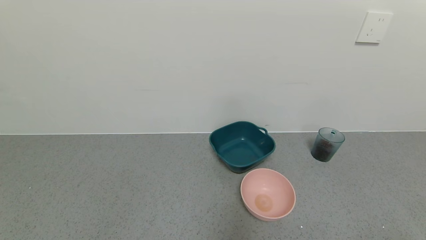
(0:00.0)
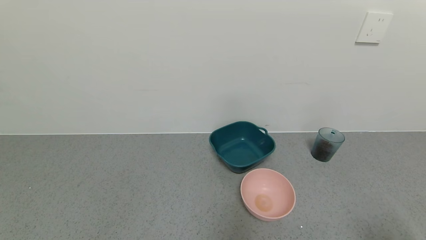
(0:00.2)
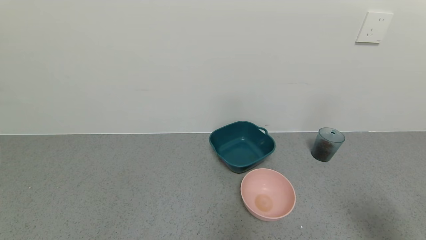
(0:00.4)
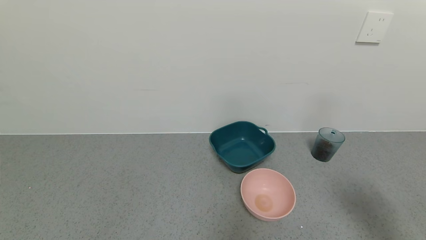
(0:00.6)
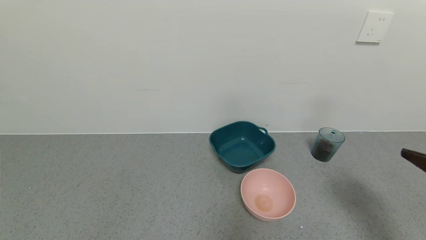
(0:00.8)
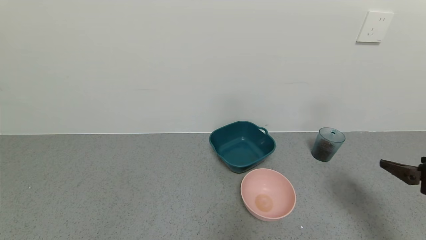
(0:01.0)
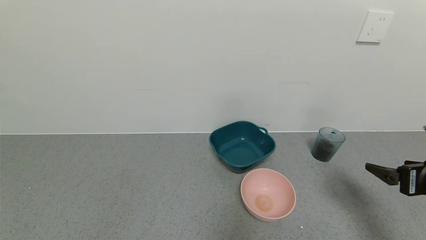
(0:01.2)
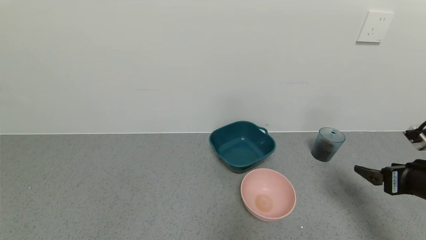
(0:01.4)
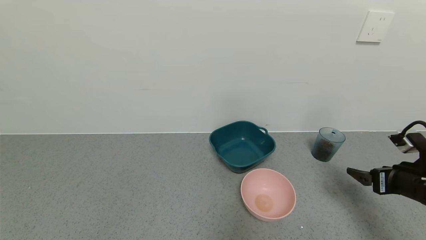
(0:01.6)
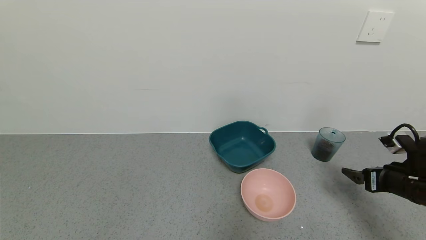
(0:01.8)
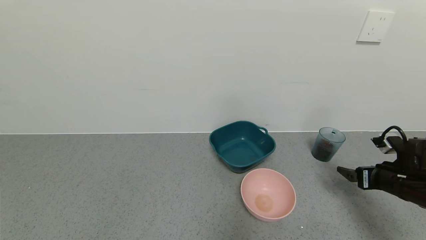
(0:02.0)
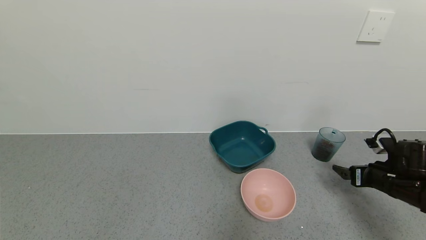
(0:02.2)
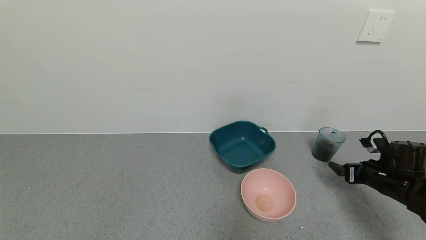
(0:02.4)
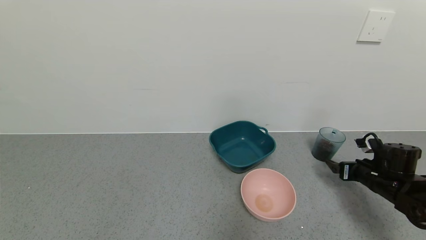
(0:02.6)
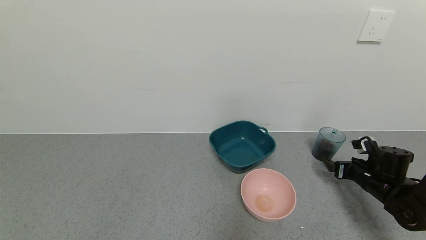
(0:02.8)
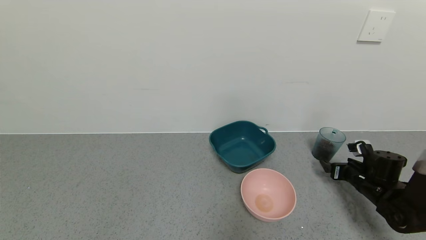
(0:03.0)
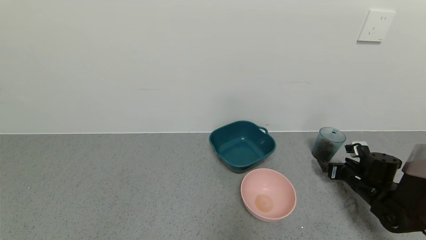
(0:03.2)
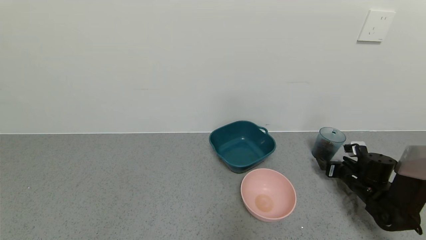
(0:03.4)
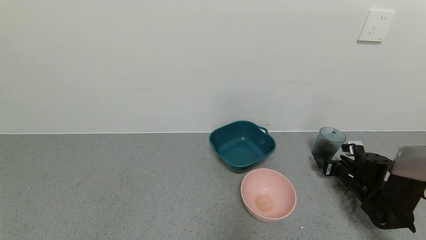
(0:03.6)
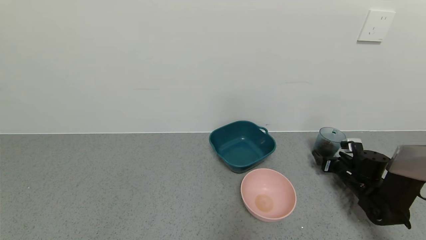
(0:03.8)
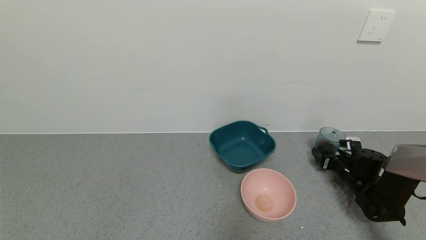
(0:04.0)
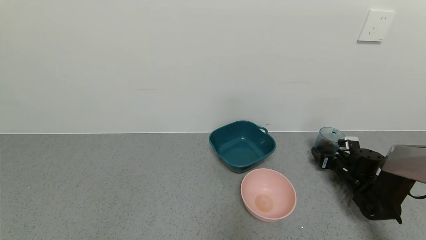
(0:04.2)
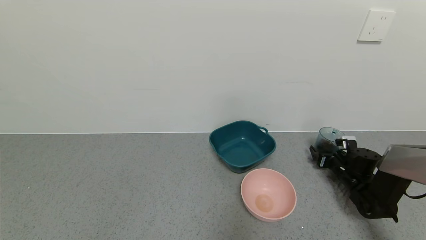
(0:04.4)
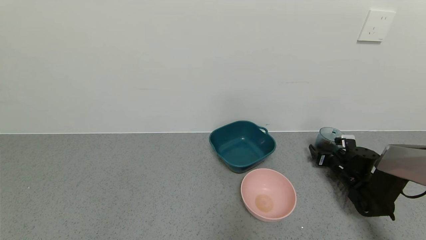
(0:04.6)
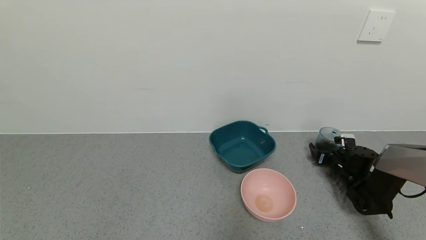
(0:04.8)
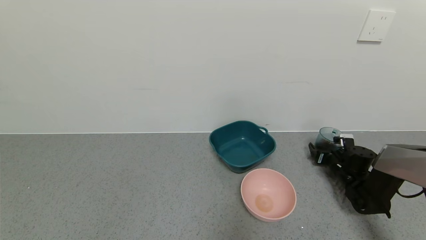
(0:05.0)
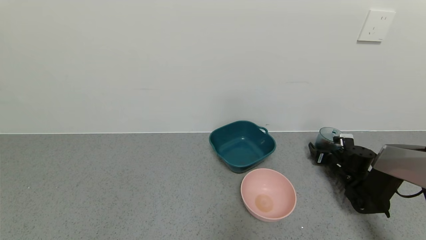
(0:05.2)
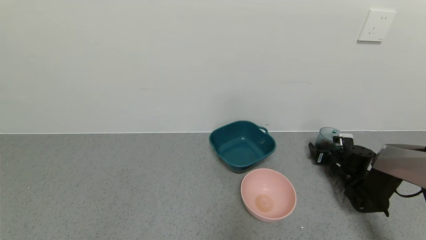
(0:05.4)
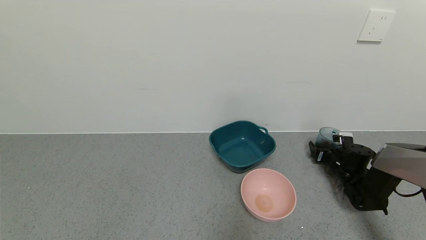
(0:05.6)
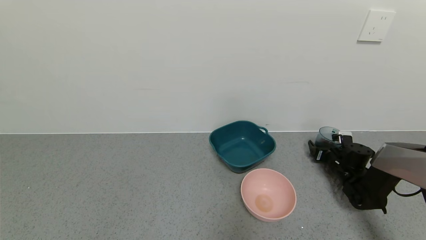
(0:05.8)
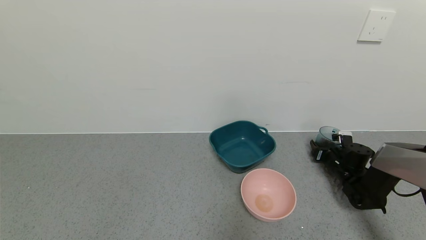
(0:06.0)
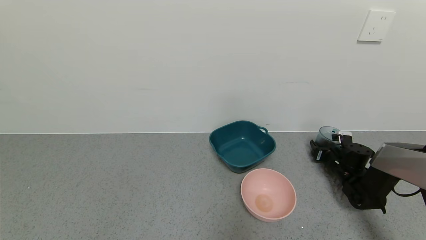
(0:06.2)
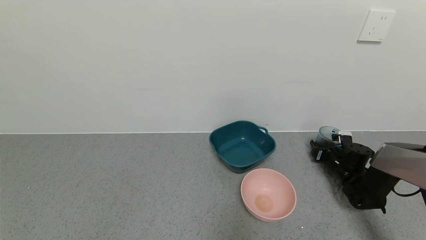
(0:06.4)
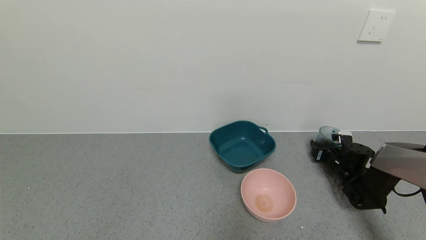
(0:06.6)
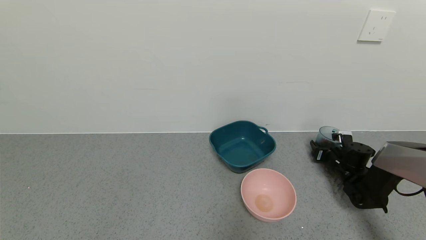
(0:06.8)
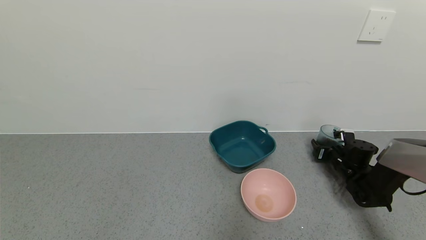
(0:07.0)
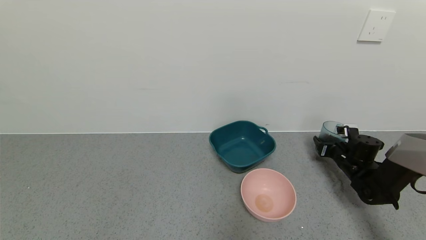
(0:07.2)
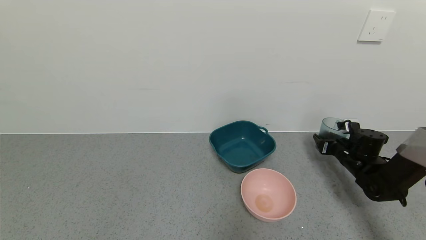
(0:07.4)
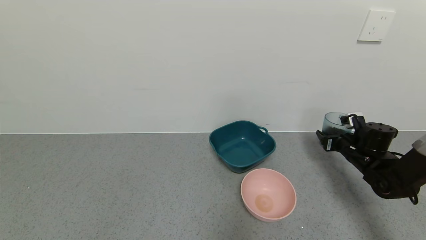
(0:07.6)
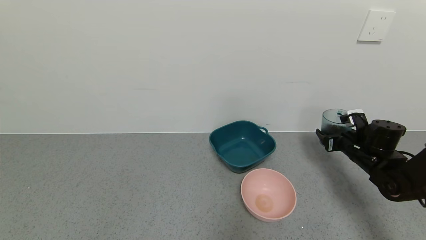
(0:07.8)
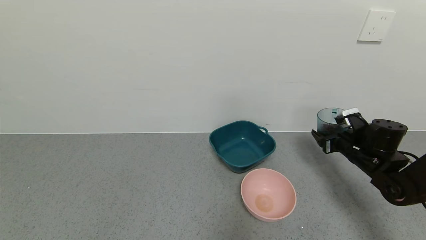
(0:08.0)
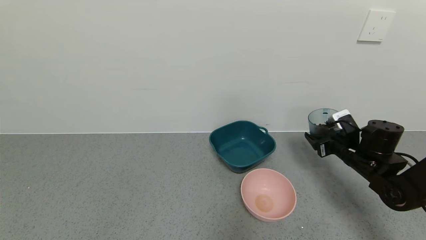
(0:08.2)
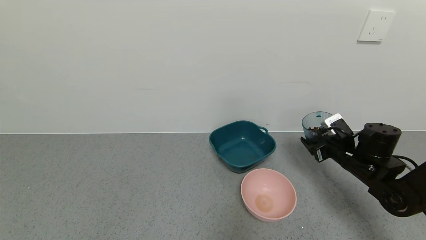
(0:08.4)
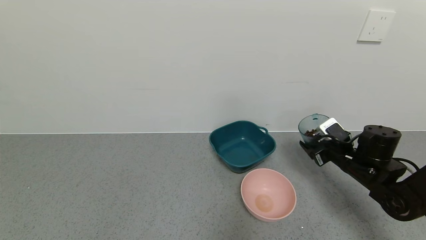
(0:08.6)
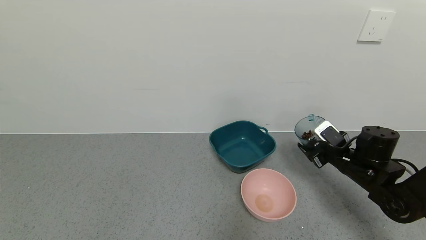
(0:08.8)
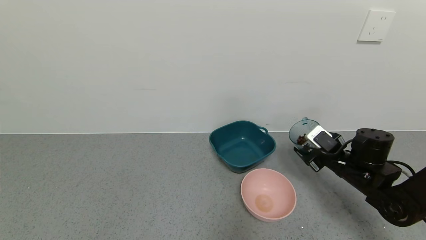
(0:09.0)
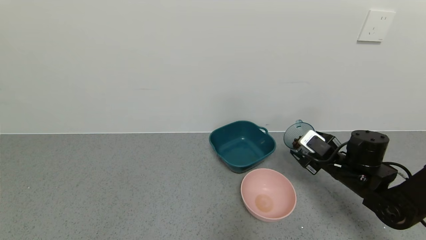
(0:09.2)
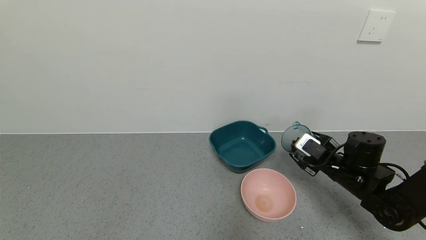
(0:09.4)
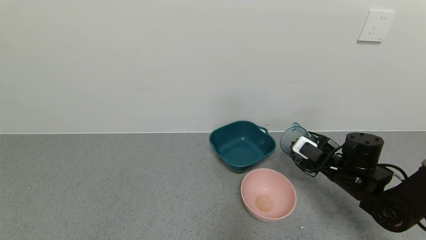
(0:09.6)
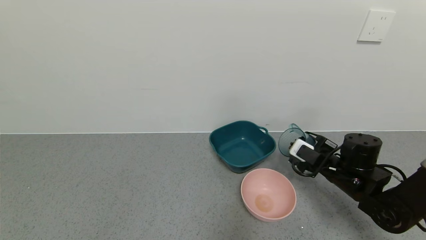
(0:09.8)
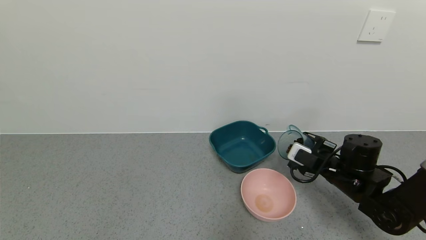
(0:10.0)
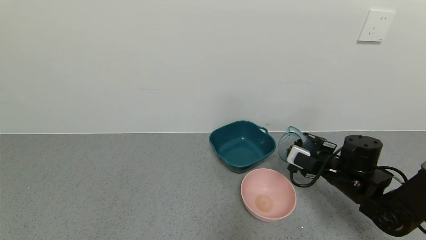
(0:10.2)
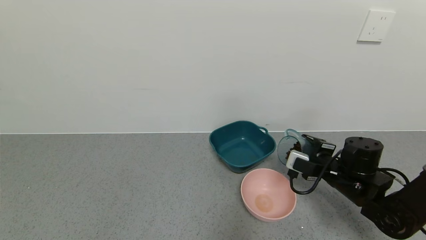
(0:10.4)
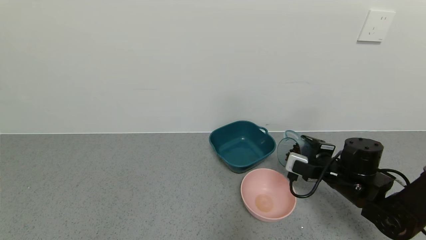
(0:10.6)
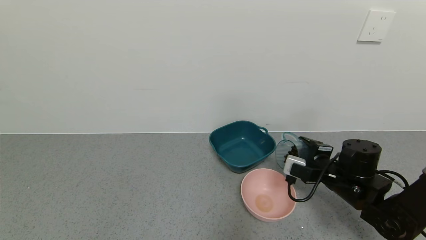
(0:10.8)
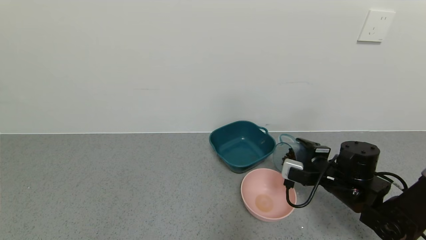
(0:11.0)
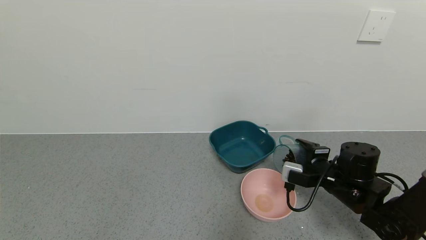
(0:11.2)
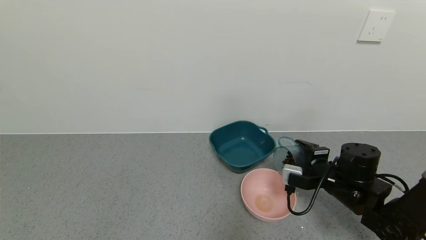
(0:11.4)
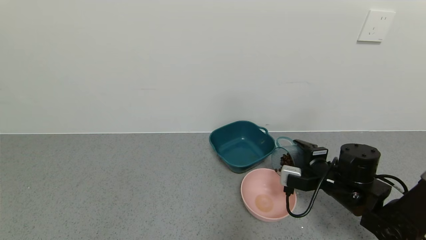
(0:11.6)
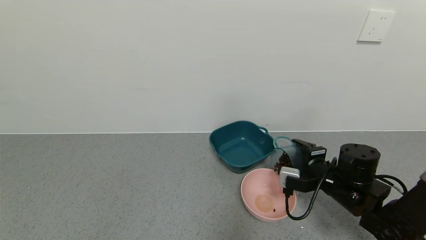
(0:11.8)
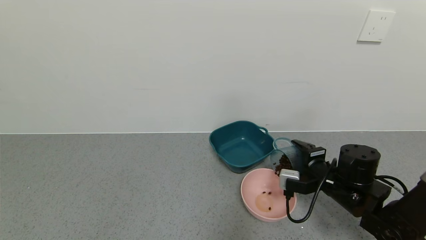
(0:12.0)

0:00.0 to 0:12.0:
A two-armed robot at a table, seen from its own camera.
Task of the whole recording: use a gripper to pick up the cup and pour the solid into a bowl or tray.
Step, 0:00.0 to 0:06.6: Grasp the glass of coffee beans with the right gripper.
0:00.0 to 0:01.6: The right gripper heads forward, covering roughly 25 cm.
0:01.6 to 0:03.0: The right gripper shifts some 15 cm downward and forward.
0:03.0 to 0:04.4: The right gripper heads forward, covering about 5 cm.
0:04.4 to 0:06.0: The right gripper closes up.
0:06.0 to 0:07.6: The right gripper is displaced upward by approximately 10 cm.
0:07.6 to 0:09.0: The right gripper travels to the left and backward by approximately 10 cm.
0:10.4 to 0:12.0: The grippers stay close to where they were, moving slightly.

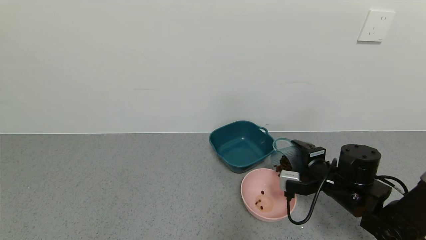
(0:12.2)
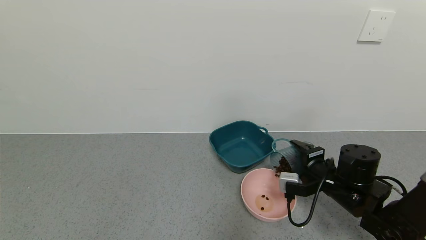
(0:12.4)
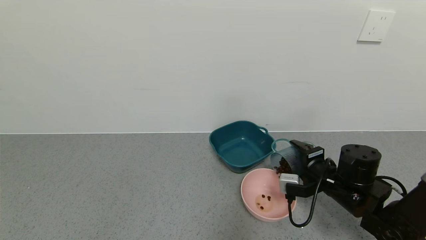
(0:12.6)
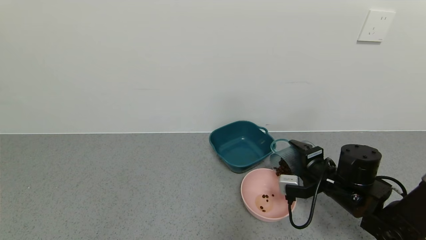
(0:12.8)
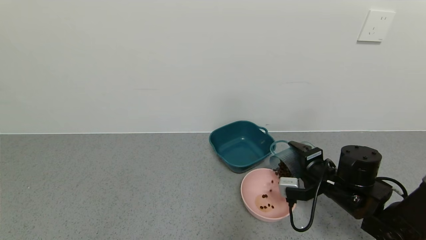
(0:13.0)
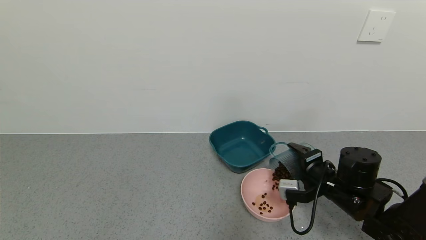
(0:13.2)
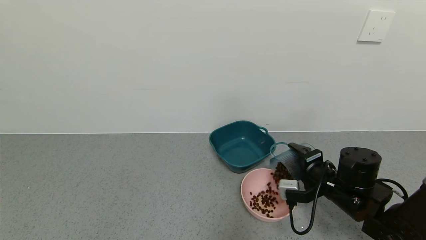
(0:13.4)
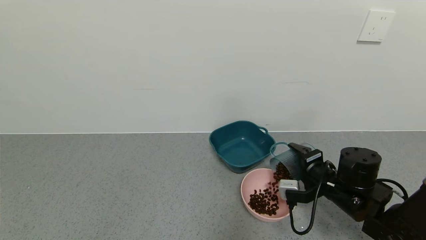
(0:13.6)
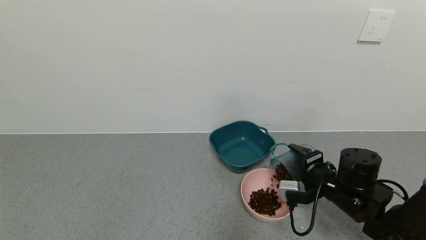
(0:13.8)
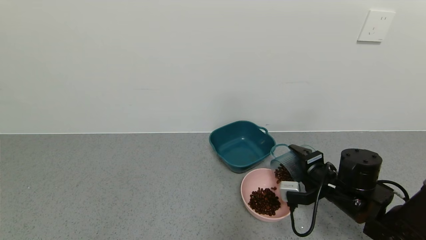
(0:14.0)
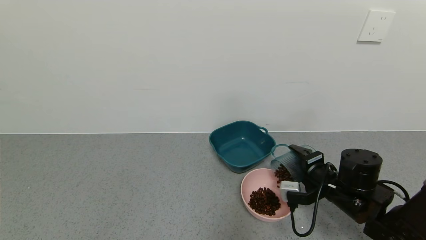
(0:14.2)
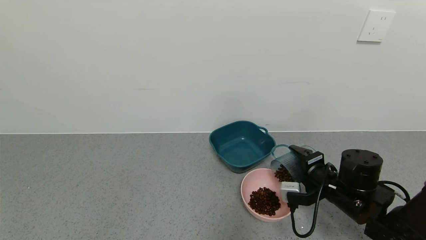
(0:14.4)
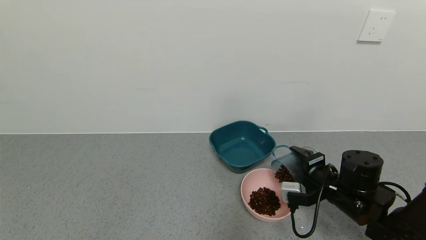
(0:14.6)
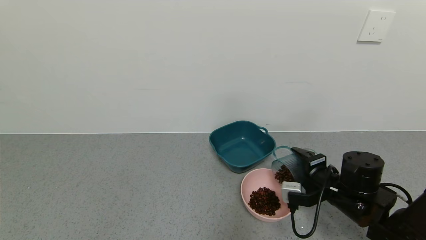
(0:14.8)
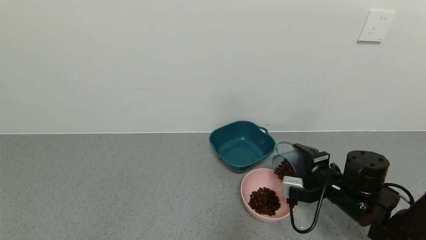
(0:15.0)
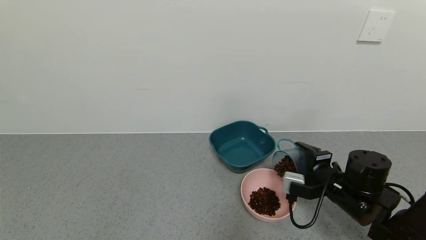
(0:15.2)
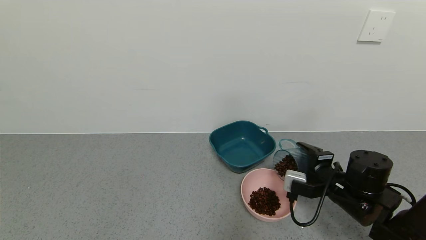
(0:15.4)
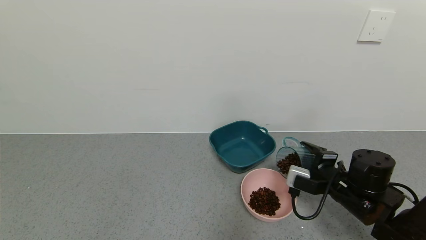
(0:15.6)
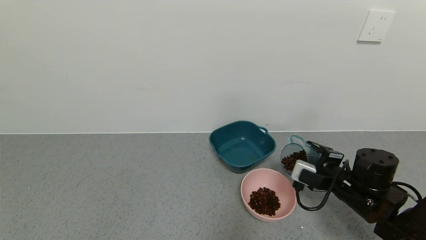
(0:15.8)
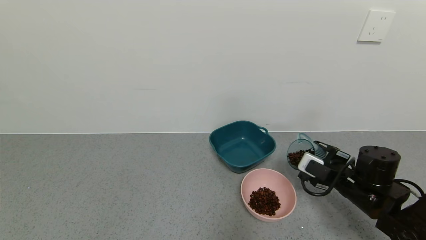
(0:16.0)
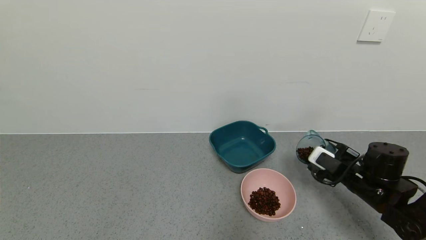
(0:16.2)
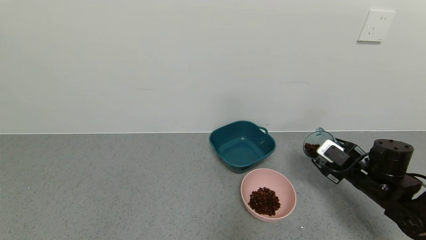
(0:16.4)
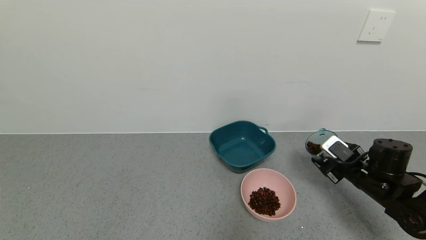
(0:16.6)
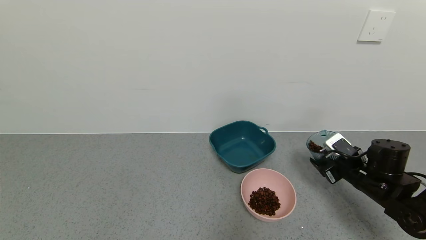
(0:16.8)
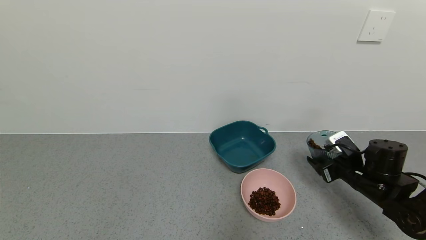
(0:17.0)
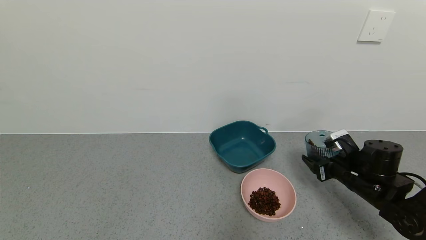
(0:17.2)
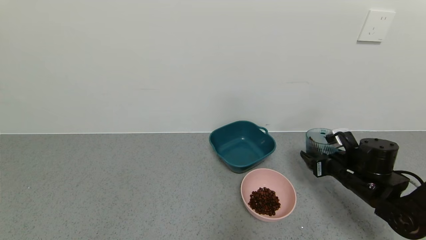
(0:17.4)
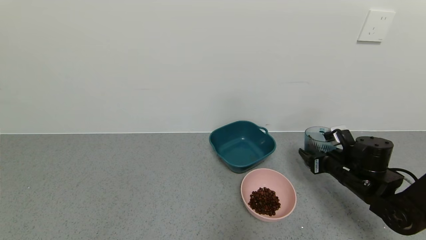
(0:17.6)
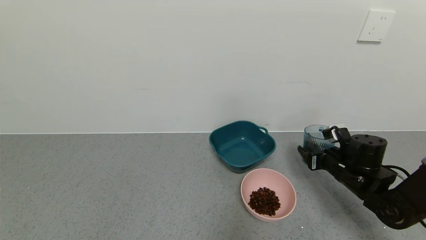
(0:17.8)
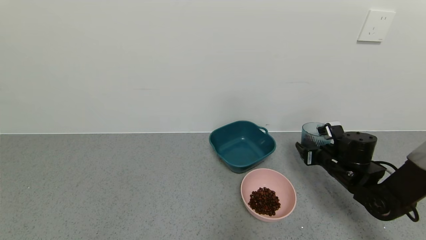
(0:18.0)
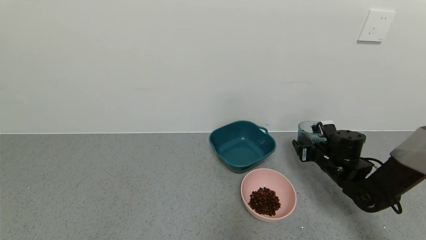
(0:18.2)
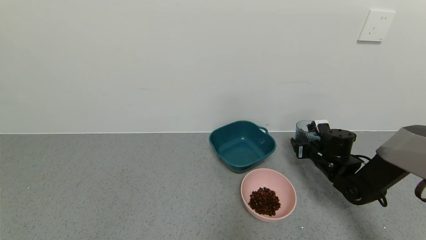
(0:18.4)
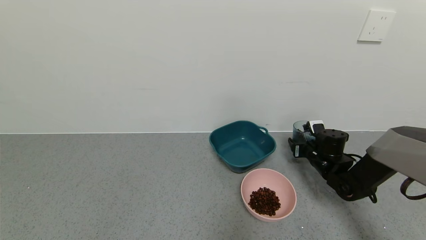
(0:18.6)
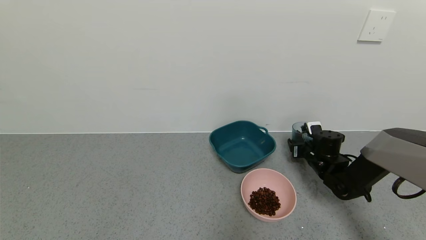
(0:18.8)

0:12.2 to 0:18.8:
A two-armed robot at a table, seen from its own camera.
Task of the whole recording: use a gripper to pick up the cup and pour the solid into a bowl or tray.
Step, 0:12.2 to 0:16.4: Pour the coffee beans into the pink bowl with the right gripper.
0:12.2 to 0:13.8: The grippers make only small movements.
0:15.4 to 0:17.2: The right gripper goes about 5 cm to the right.
0:17.2 to 0:18.8: The right gripper is displaced forward by about 10 cm.
